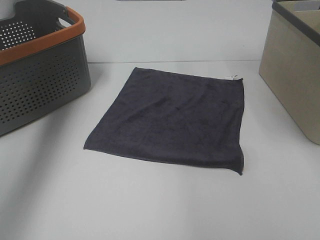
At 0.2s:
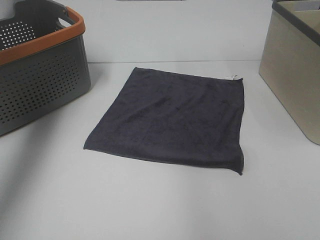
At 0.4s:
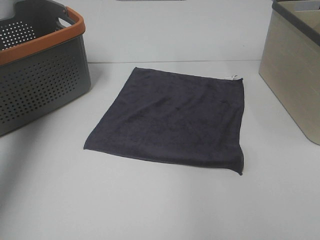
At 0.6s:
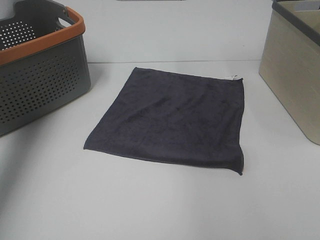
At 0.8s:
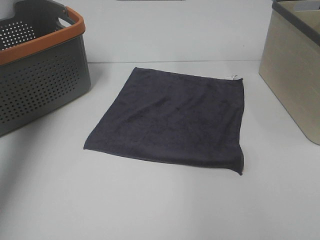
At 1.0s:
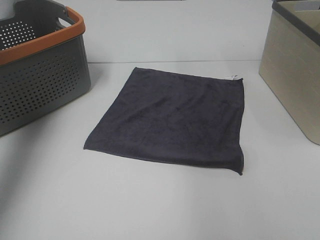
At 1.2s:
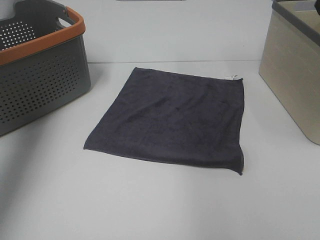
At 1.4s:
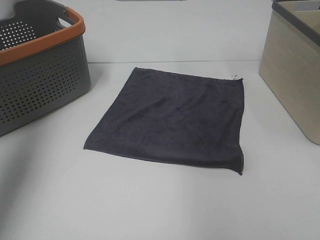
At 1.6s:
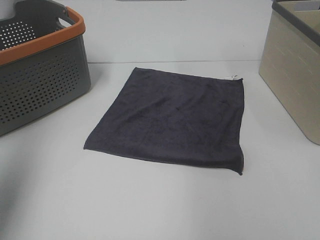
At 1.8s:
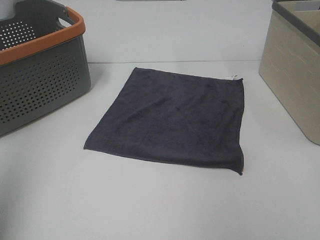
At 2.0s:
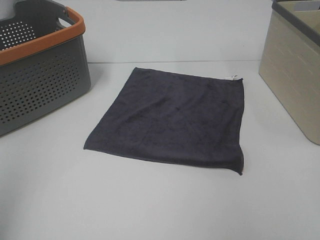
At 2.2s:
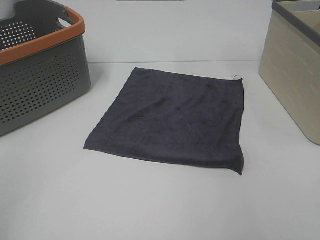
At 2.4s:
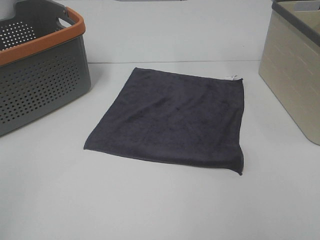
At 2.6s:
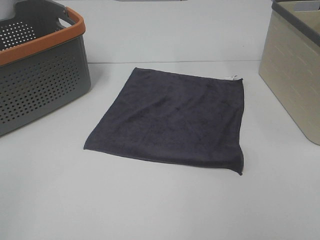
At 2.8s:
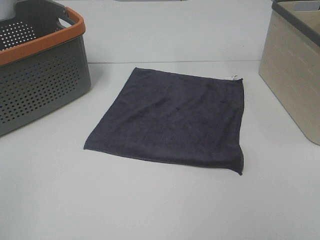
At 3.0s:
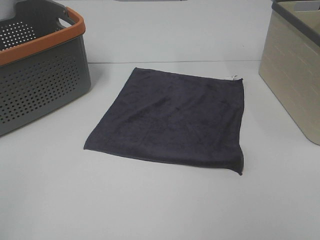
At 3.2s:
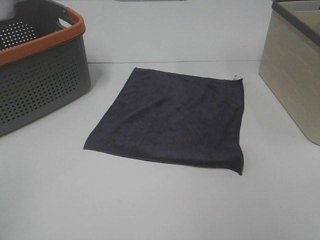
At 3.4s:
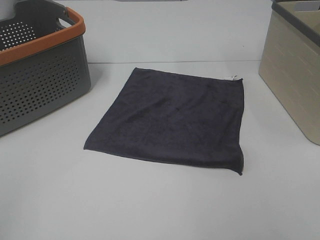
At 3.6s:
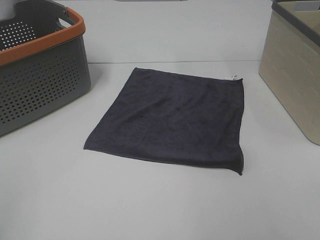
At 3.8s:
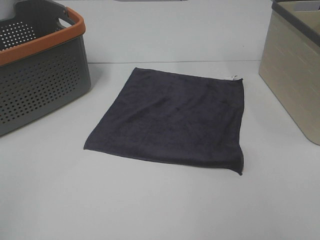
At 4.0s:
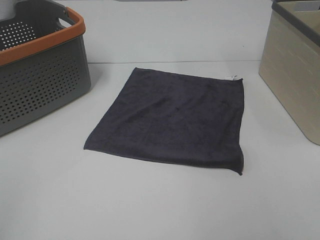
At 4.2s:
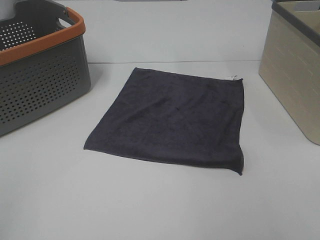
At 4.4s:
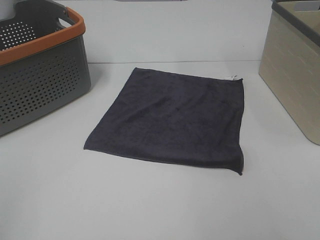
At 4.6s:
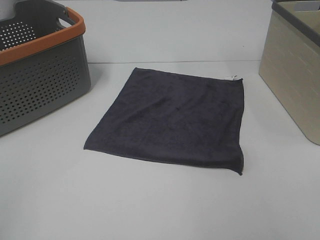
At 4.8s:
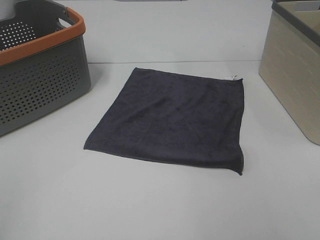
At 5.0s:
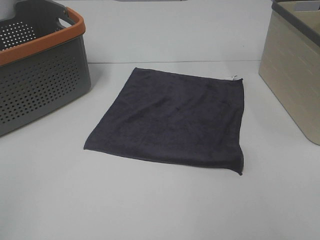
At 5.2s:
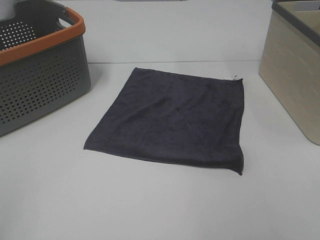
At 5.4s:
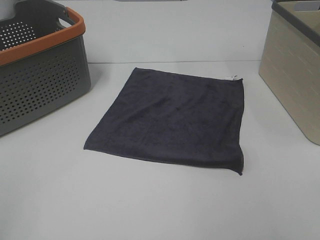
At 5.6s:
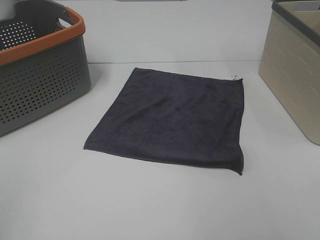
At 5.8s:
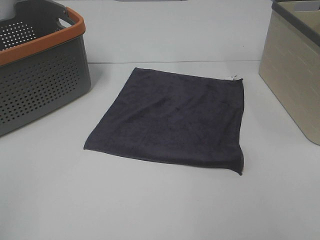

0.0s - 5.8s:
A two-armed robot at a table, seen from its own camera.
Task of the whole recording: Remove the towel and place it.
0.0s - 1.4s: The right gripper heads to the right and backward, covering roughly 10 cm. The left gripper heads backward, covering roughly 15 cm.
1.4s - 2.8s: The left gripper heads backward and downward, covering roughly 25 cm.
4.4s - 5.8s: Both grippers stay put.

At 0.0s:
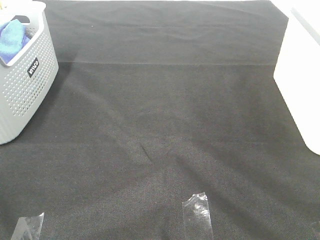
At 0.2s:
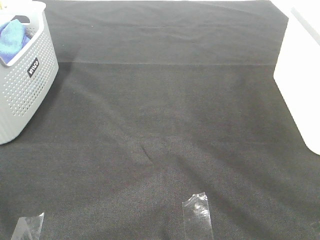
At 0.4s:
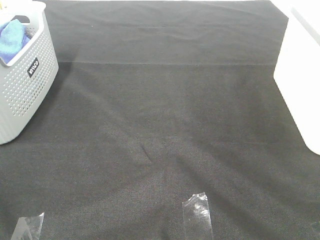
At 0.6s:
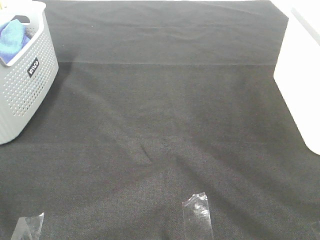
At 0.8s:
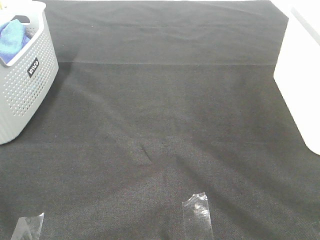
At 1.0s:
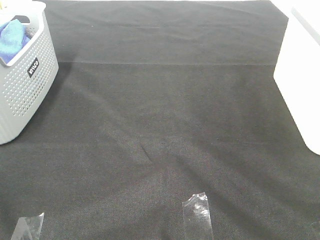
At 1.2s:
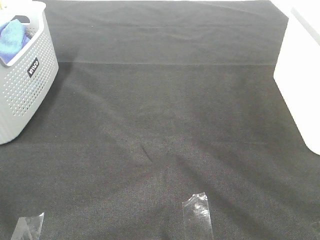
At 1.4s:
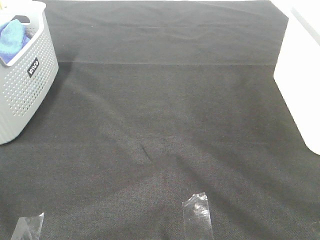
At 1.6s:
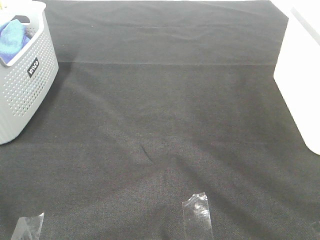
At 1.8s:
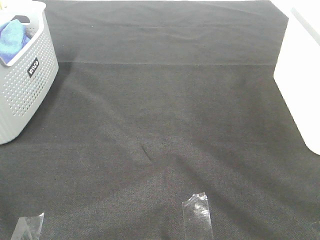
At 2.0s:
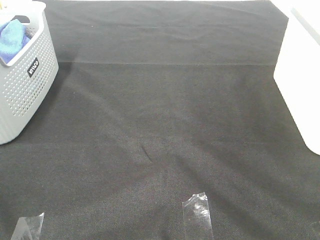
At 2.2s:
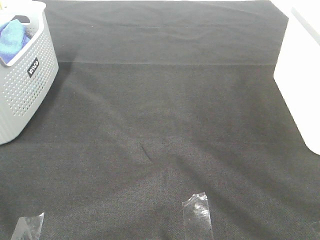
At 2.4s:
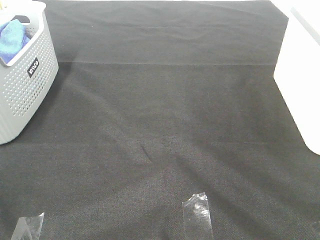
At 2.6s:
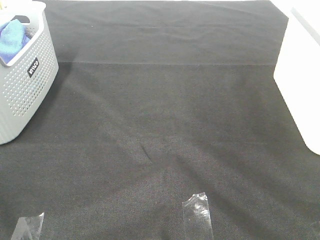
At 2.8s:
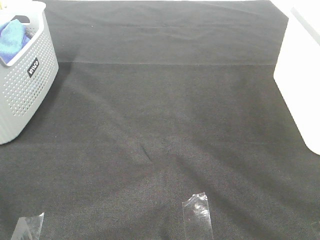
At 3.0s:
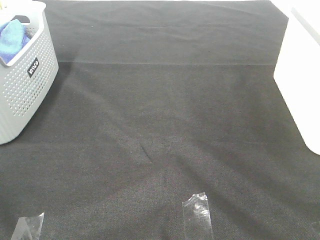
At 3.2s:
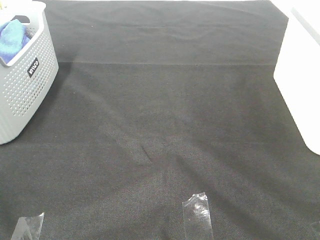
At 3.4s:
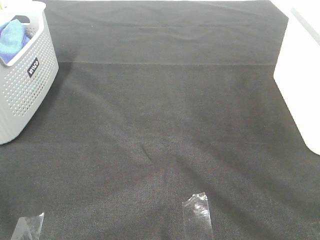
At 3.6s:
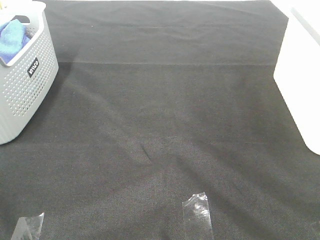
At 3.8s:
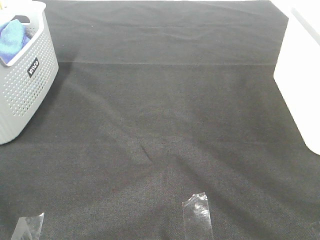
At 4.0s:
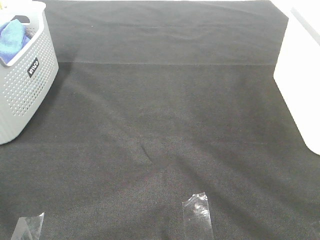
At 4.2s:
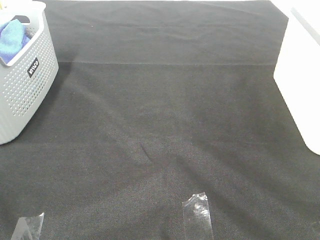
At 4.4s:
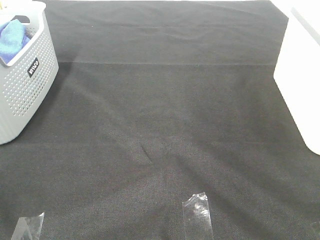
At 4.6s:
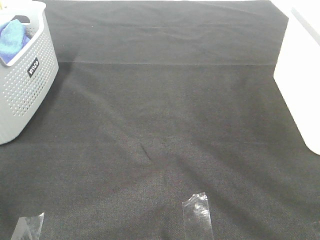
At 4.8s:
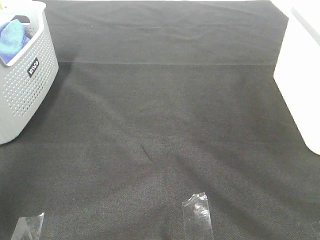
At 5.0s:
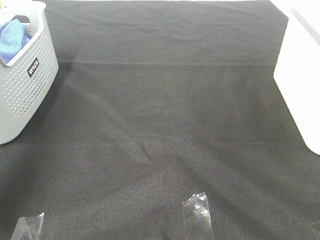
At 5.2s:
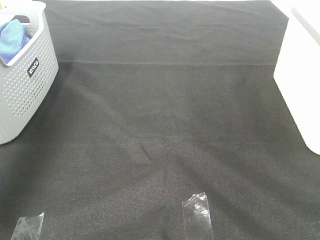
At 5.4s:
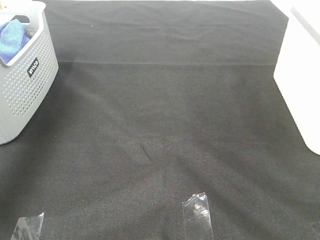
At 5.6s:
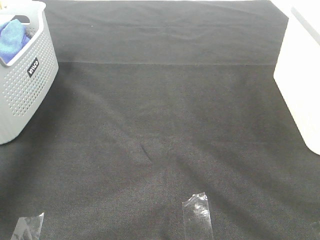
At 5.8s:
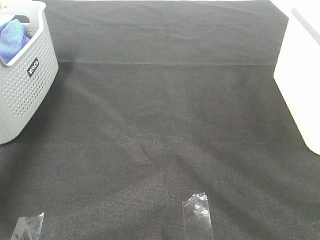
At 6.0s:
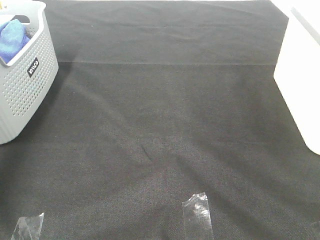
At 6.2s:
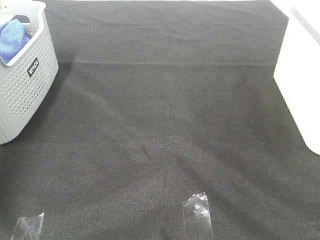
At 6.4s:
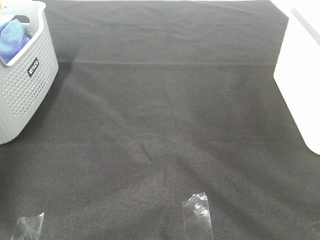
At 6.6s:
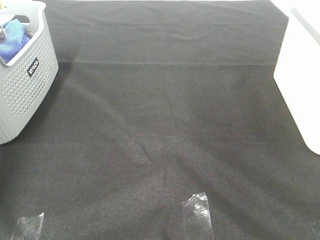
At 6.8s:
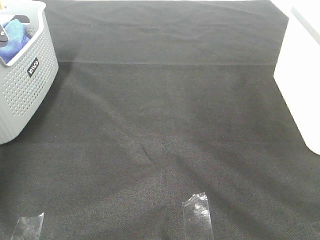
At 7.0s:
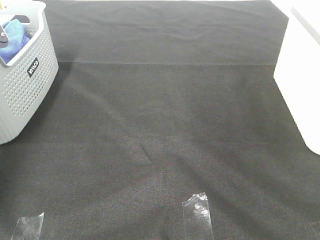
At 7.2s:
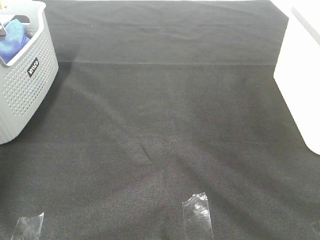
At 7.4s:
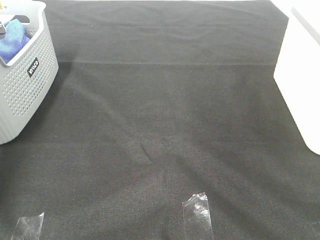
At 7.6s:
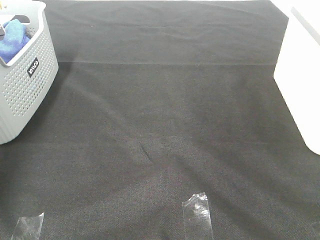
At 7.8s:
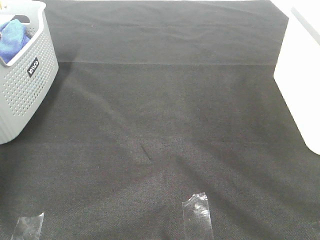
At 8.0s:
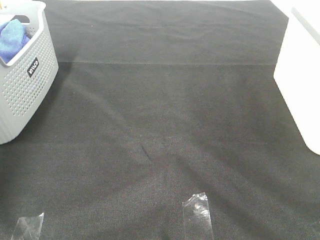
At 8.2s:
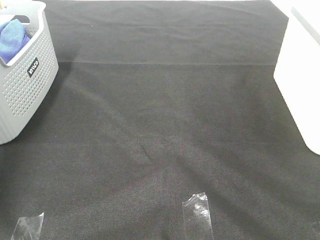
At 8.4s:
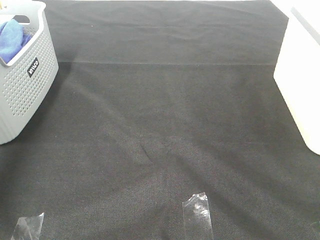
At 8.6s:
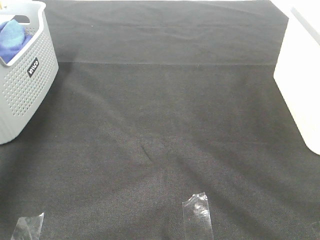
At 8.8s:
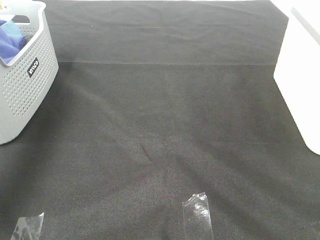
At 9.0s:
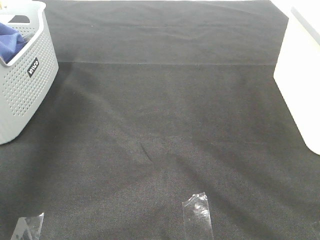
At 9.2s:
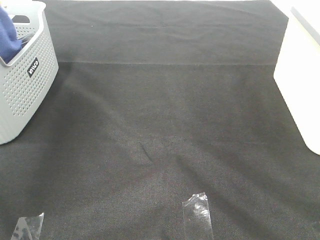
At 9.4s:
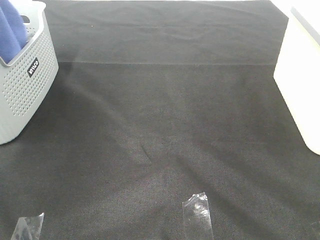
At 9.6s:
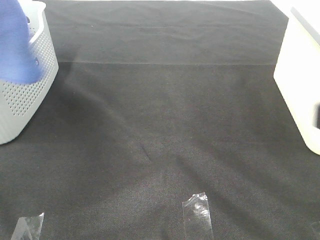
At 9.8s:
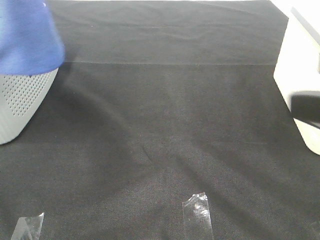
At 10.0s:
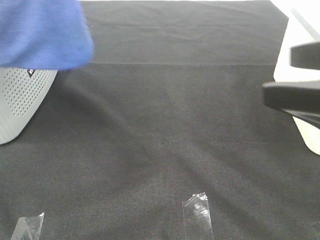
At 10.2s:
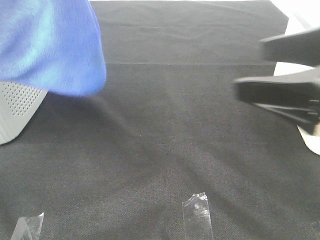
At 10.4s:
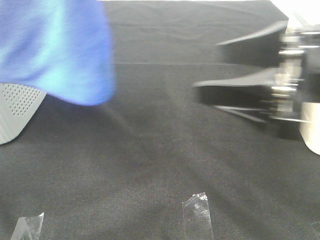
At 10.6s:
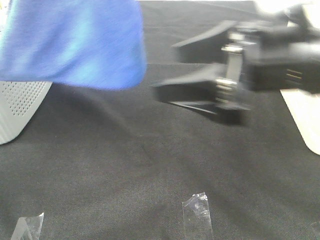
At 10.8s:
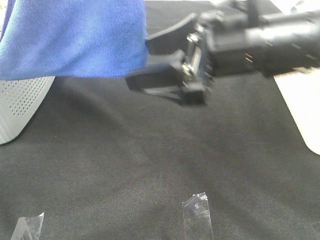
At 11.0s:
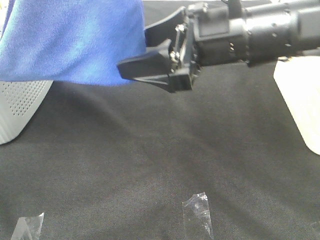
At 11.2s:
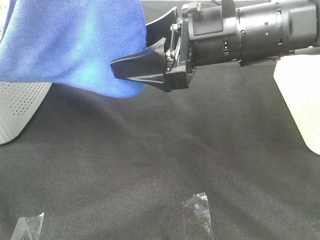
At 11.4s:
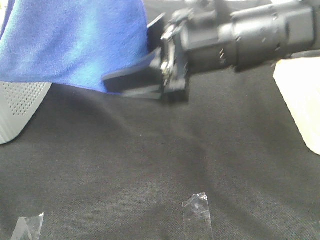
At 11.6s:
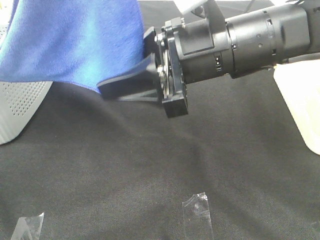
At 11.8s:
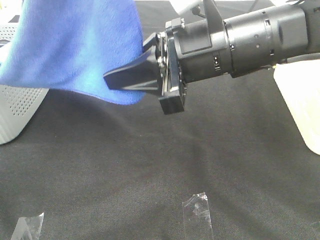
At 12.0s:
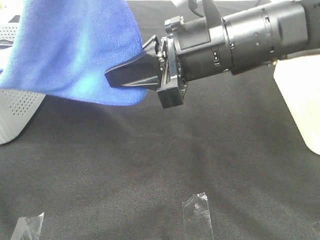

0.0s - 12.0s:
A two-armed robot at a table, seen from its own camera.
Task of the whole recording: Remove the towel and place it.
Step, 8.8s - 12.0s: Right hand: grab a corner of the blue towel and straighten it.
0.0s - 3.0s: Neither gripper changes place.
4.4s - 6.0s: The left gripper goes roughly 50 cm forward.
7.6s - 9.0s: The left gripper goes about 35 cm upward, backward and to the right.
9.0s - 10.4s: The right gripper travels forward and to the left by roughly 20 cm; the left gripper travels to the right and backward by approximately 20 cm.
10.4s - 12.0s: The right gripper goes about 10 cm to the left and forward, and closes.

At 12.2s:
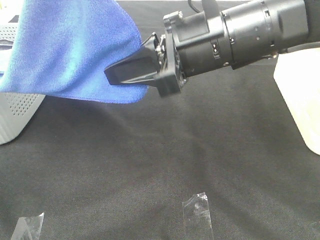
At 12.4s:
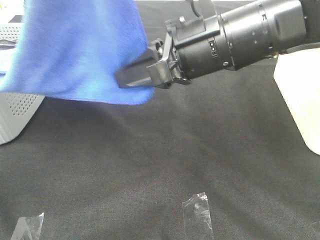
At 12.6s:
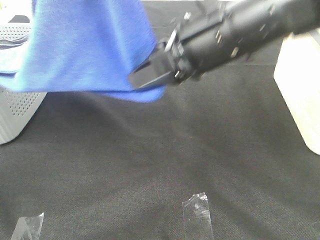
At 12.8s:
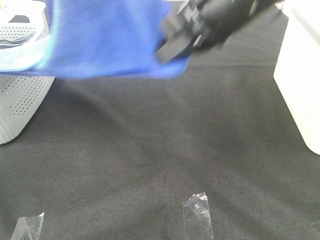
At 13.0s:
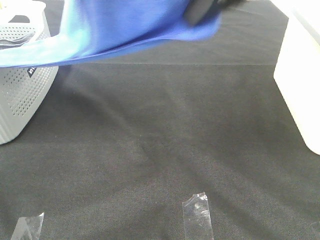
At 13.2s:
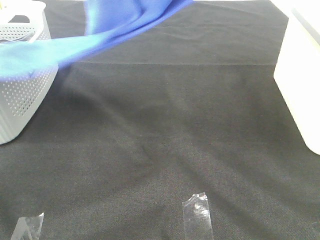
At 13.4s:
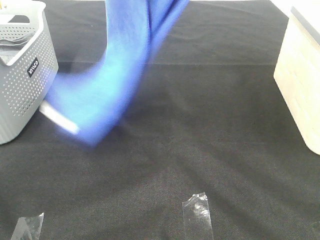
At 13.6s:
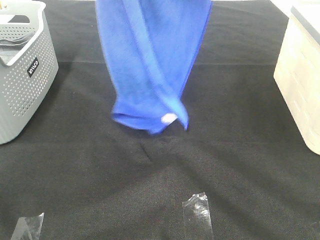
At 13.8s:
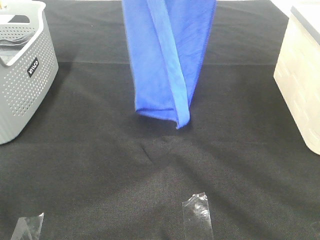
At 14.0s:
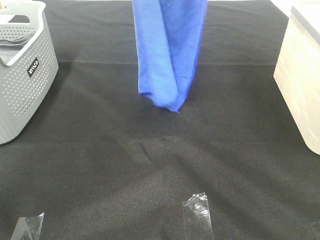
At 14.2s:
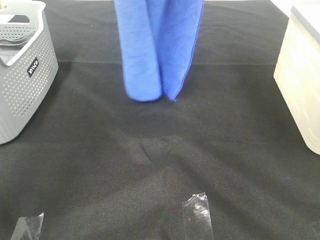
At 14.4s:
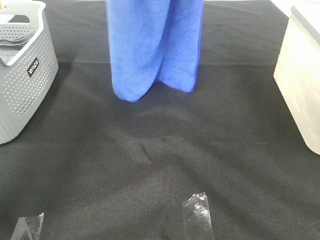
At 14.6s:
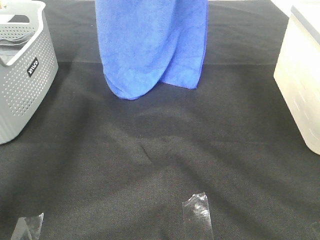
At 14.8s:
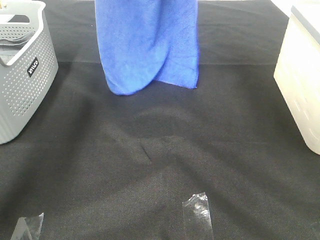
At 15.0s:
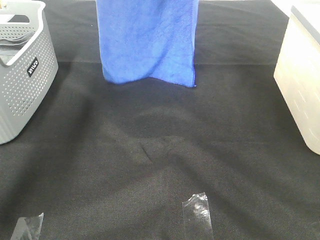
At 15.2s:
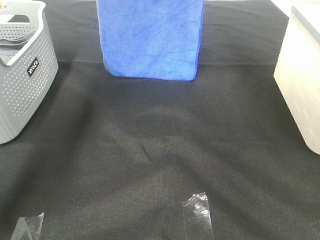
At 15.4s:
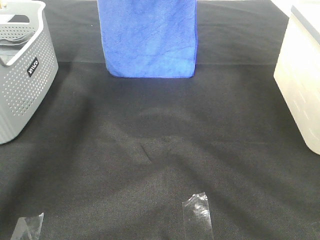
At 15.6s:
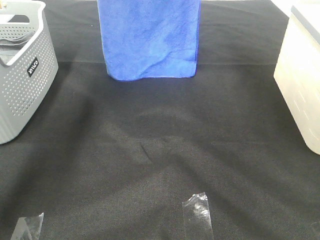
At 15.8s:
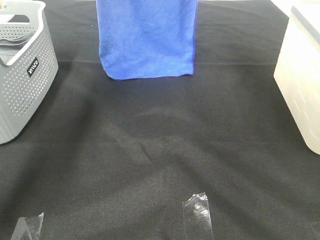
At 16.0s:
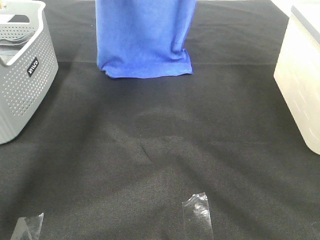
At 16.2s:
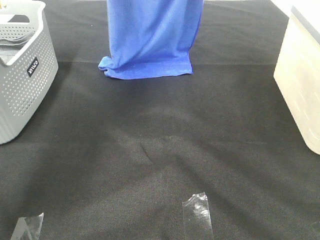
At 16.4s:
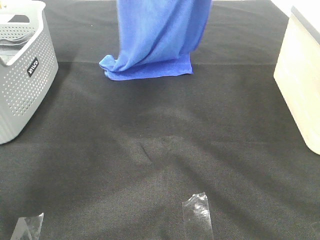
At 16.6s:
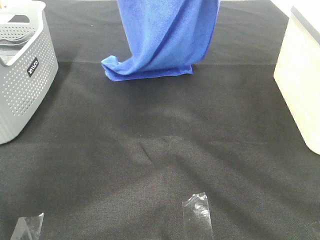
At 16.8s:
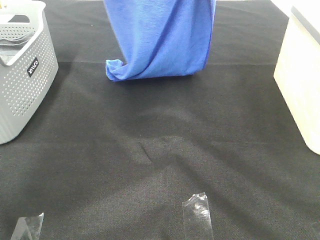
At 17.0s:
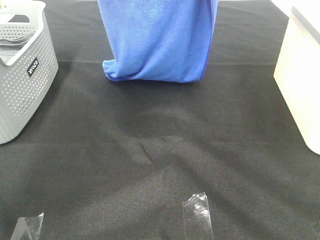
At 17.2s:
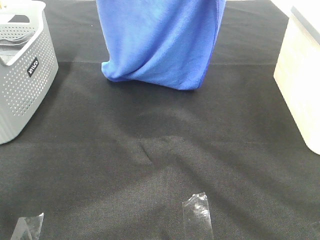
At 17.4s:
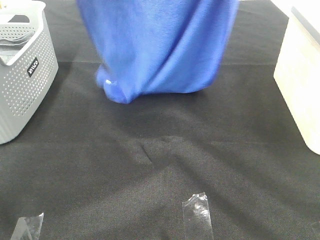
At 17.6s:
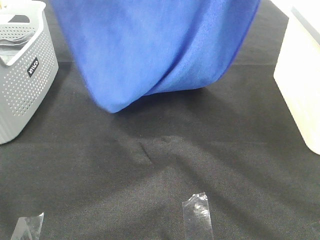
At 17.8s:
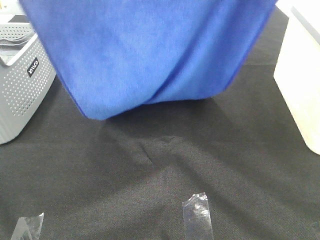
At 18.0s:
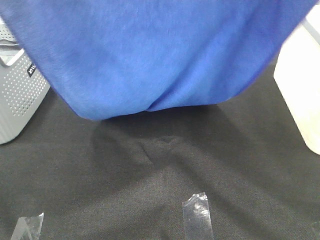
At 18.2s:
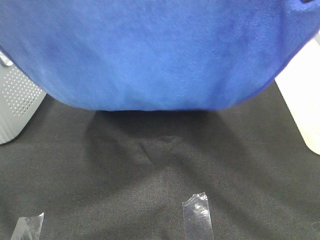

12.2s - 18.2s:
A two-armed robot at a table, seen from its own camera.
Task of the whole recording: Remove the towel and place it.
Step, 12.2s - 18.0s: Left hand: spread the blue towel flat on the table.
Step, 12.2s - 18.0s: Right hand: spread the blue towel flat on the table.
12.2s - 13.8s: The right gripper shifts about 25 cm upward and forward. Meanwhile the left gripper is displaced forward by some 15 cm.
13.8s - 15.2s: Both grippers travel together forward and downward, approximately 15 cm.
15.2s - 16.6s: The two grippers go about 10 cm backward.
16.6s - 18.2s: Both grippers travel together backward, some 25 cm.
